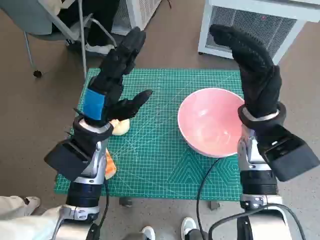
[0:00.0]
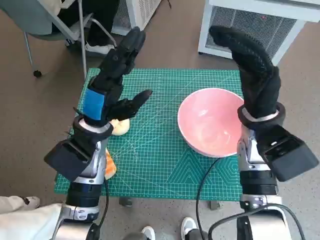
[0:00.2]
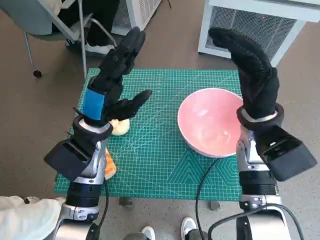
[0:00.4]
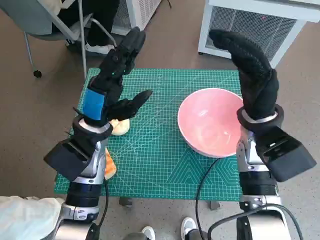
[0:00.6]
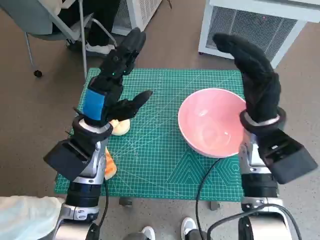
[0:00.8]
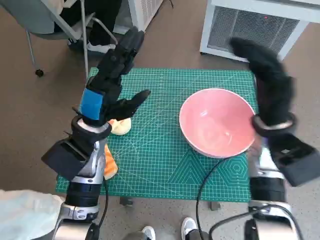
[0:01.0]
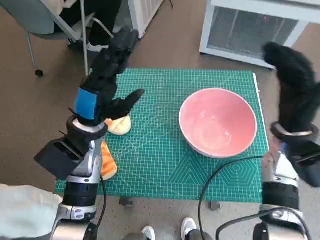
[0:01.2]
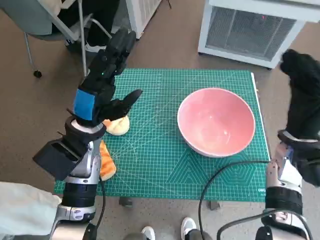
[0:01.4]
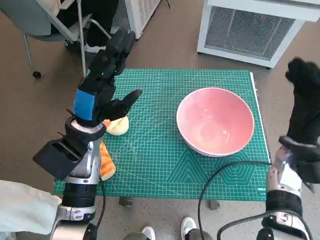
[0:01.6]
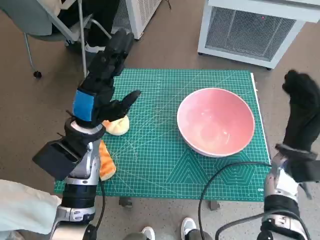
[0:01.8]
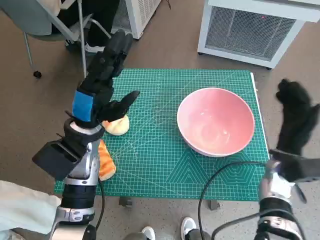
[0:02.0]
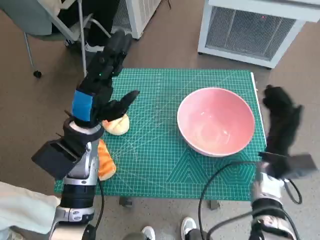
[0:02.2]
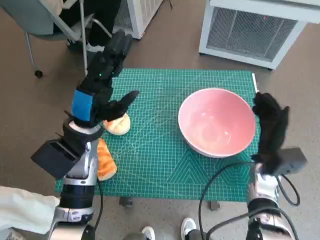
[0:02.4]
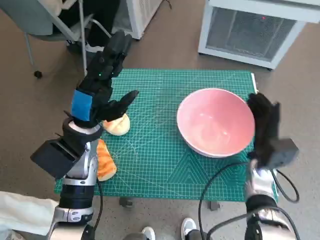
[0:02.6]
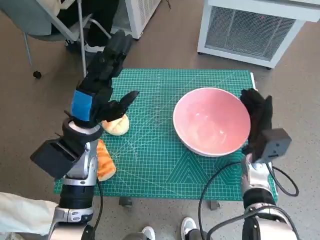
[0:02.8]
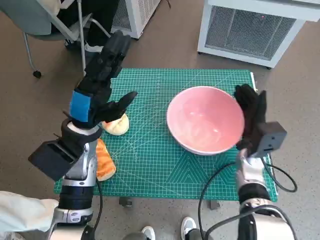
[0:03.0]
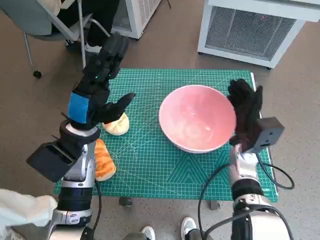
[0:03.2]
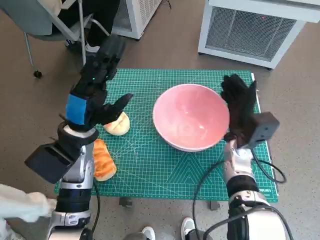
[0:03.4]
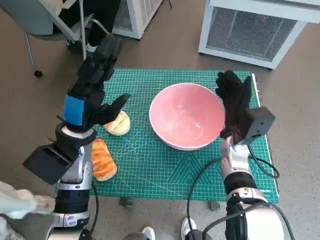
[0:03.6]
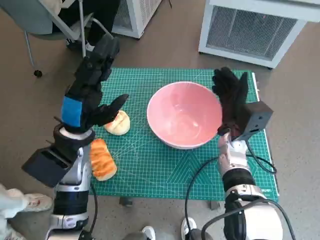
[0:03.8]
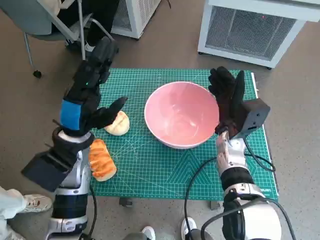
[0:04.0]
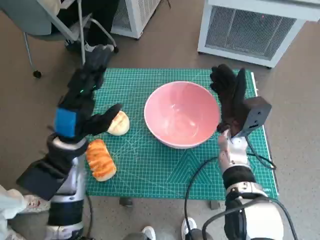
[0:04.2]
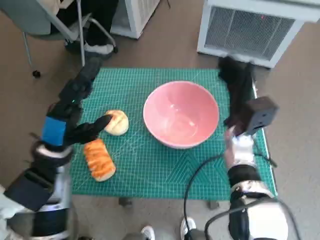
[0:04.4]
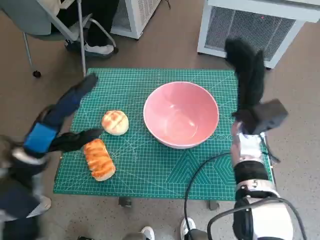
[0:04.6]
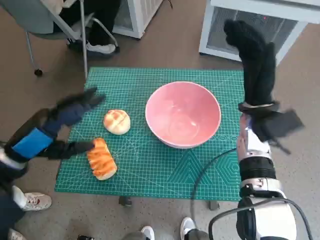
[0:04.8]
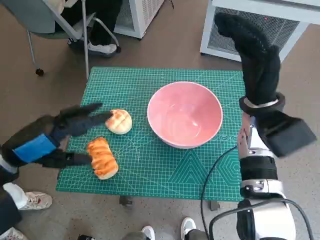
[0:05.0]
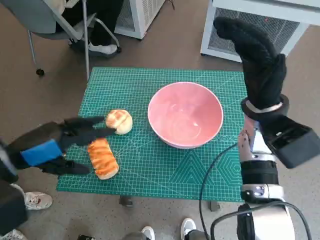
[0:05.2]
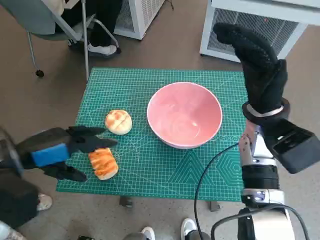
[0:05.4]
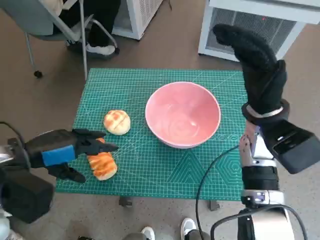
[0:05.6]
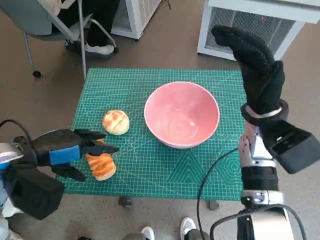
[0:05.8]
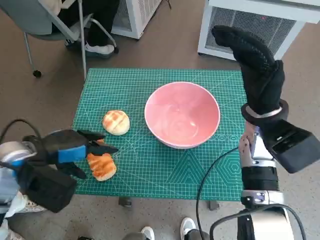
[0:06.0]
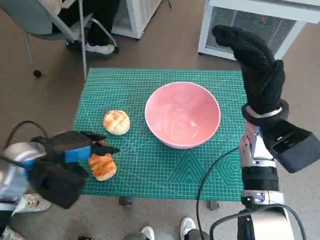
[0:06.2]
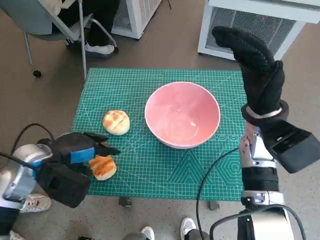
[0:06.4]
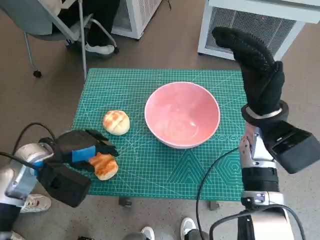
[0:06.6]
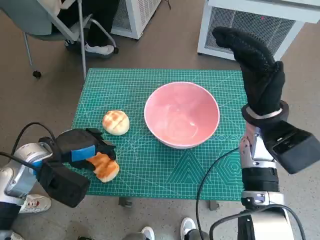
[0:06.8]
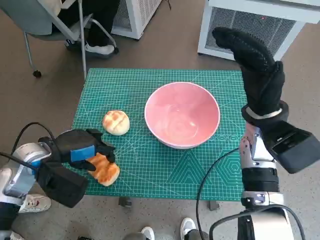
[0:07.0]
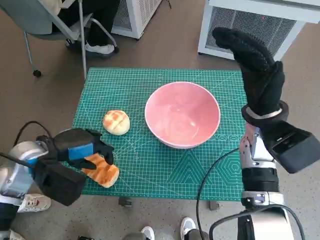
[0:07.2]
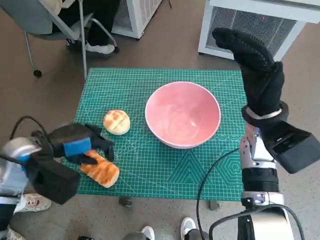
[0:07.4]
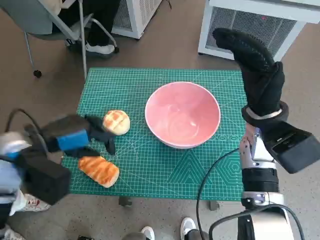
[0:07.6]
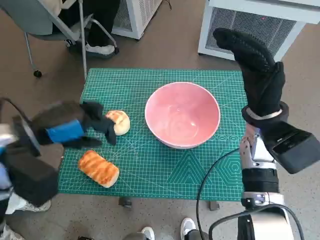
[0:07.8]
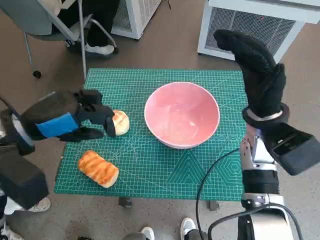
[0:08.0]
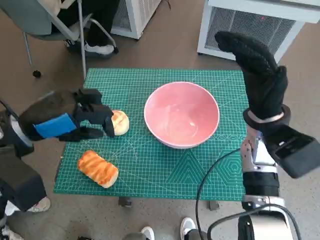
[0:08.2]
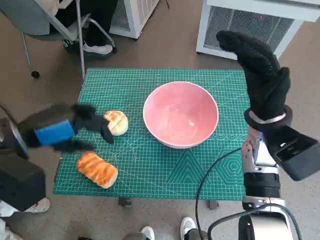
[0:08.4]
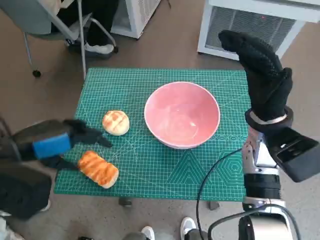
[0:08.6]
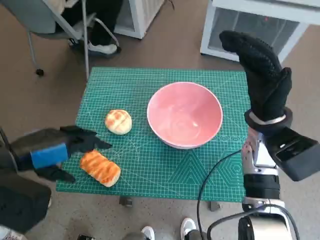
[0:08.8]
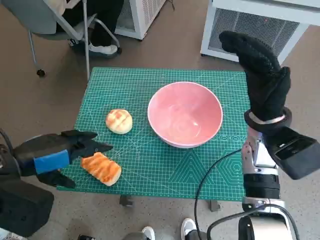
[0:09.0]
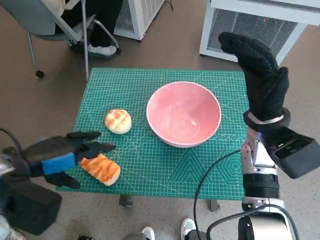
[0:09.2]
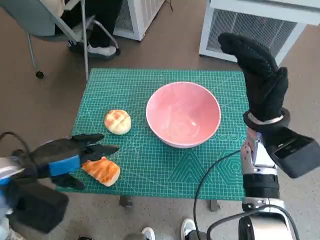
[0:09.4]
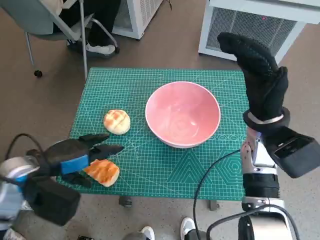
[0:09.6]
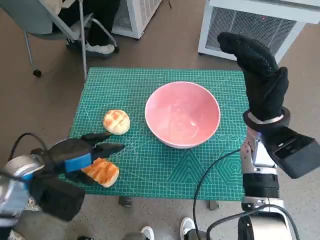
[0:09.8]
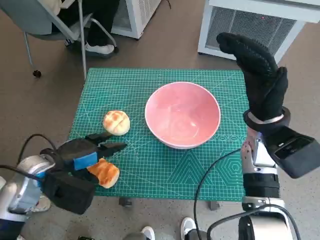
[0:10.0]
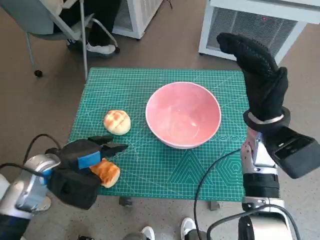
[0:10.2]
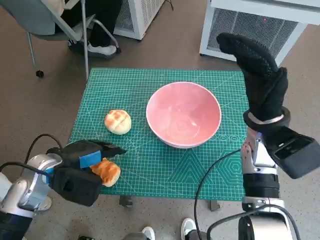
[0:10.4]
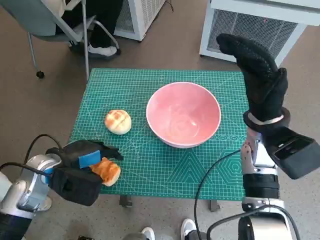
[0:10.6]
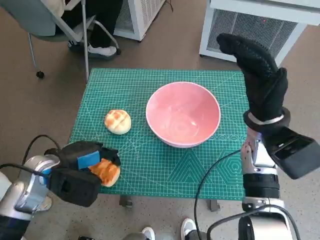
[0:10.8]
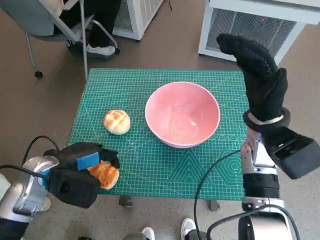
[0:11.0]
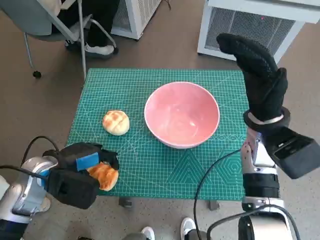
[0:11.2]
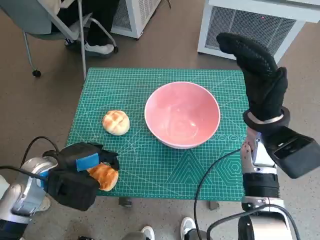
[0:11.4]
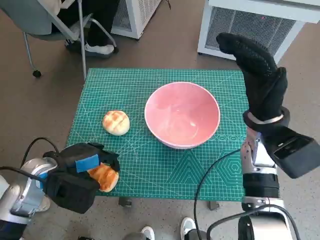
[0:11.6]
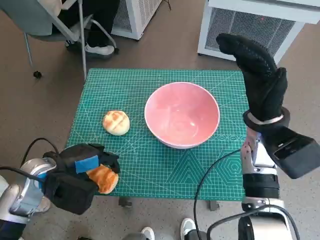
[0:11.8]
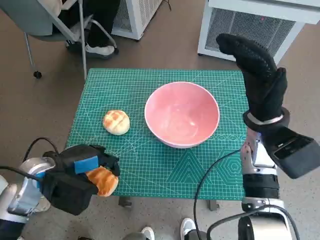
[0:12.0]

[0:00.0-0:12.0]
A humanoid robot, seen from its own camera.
Task of the whole recording: Push the bowl to the center of the table and put the bread into the bowl.
Step, 0:00.0 to 0:04.4: Move the pink bowl to the center of table with right hand.
Step, 0:04.6 to 0:11.0: Grasp the long bread with left hand.
0:01.6 to 0:03.0: The right hand heads downward and to the left, covering roughly 10 cm.
0:03.0 to 0:04.4: The left hand moves approximately 5 cm, while the right hand ends up approximately 5 cm from where it was.
0:04.4 to 0:06.0: The right hand moves upward, about 10 cm.
0:06.0 to 0:07.6: The hands move only a little.
0:07.6 to 0:09.0: The left hand shifts some 5 cm backward.
0:09.0 to 0:10.4: The left hand travels downward by some 10 cm.
0:10.4 to 0:12.0: The hands move only a little.

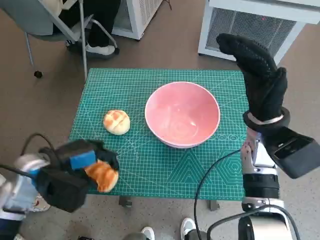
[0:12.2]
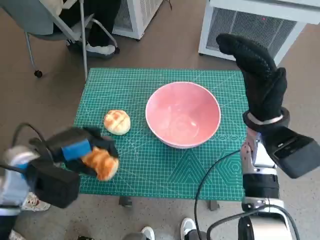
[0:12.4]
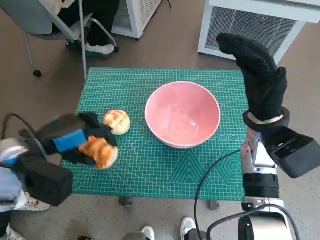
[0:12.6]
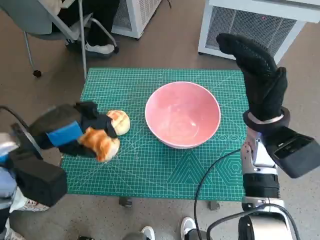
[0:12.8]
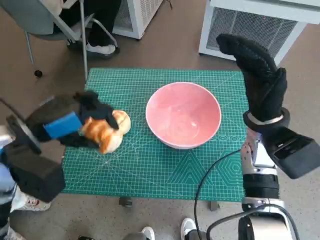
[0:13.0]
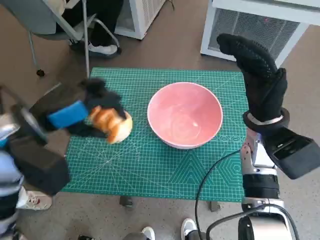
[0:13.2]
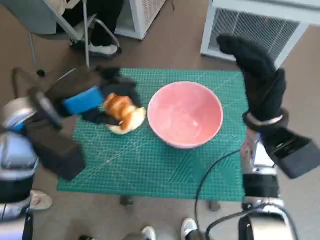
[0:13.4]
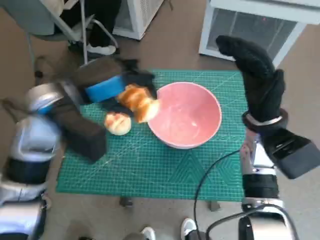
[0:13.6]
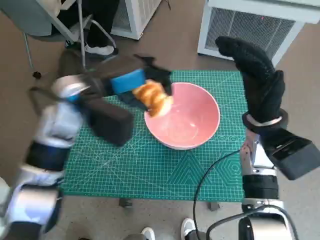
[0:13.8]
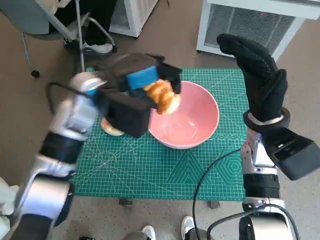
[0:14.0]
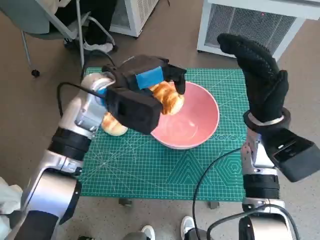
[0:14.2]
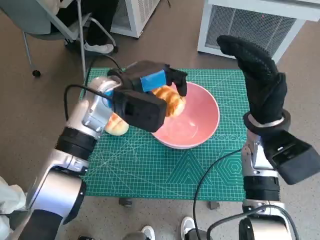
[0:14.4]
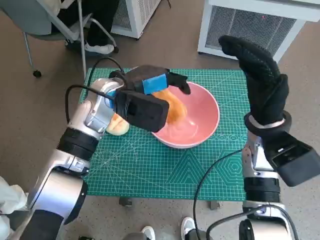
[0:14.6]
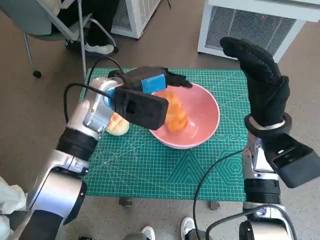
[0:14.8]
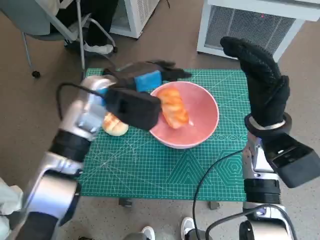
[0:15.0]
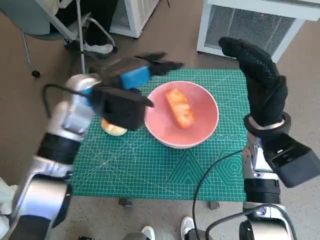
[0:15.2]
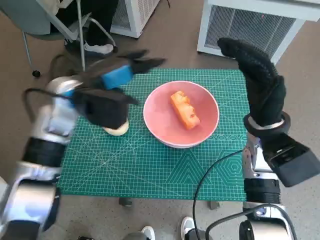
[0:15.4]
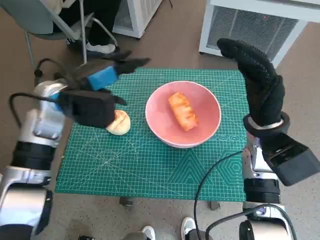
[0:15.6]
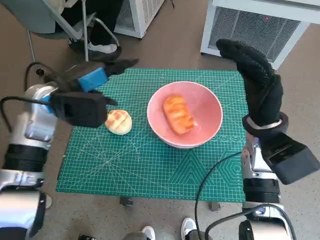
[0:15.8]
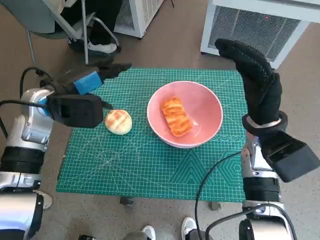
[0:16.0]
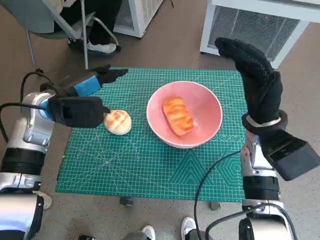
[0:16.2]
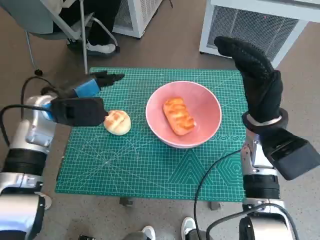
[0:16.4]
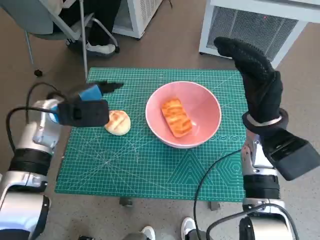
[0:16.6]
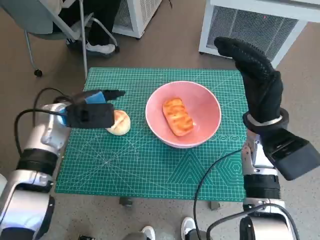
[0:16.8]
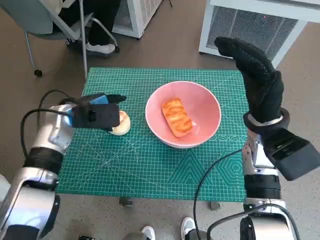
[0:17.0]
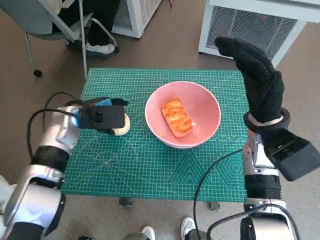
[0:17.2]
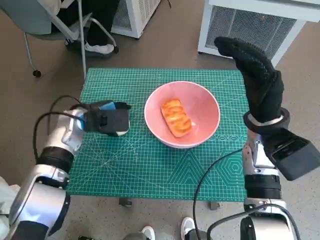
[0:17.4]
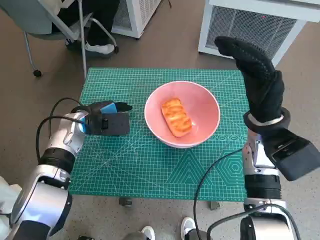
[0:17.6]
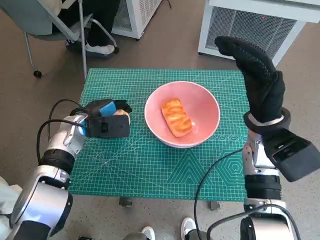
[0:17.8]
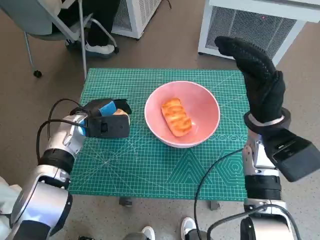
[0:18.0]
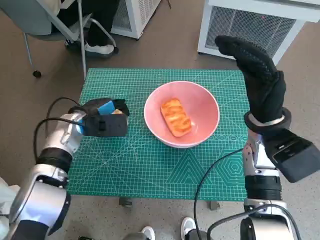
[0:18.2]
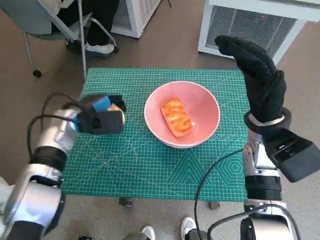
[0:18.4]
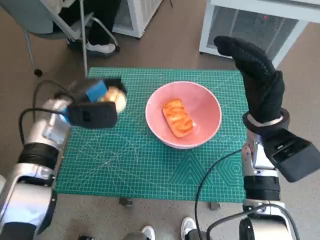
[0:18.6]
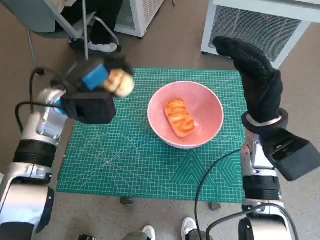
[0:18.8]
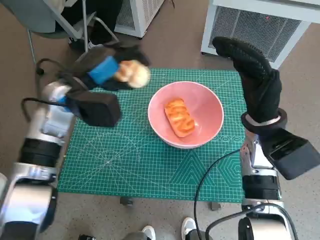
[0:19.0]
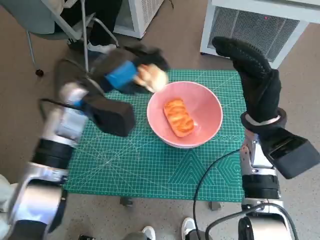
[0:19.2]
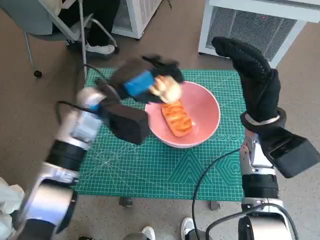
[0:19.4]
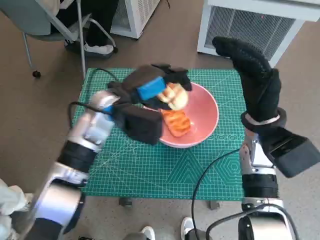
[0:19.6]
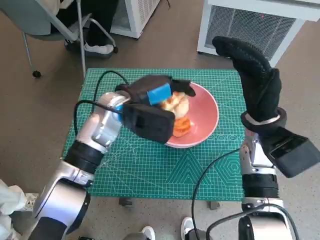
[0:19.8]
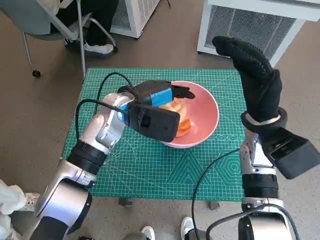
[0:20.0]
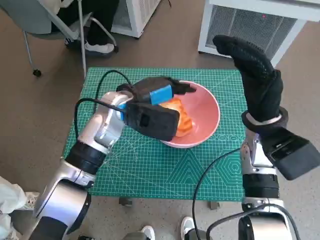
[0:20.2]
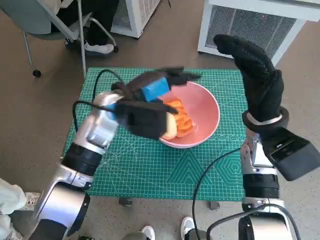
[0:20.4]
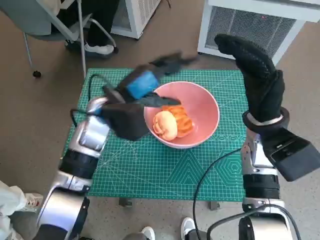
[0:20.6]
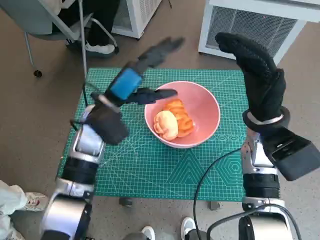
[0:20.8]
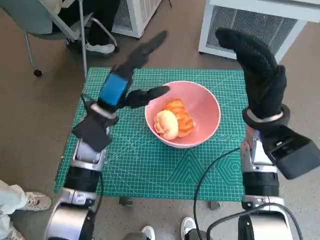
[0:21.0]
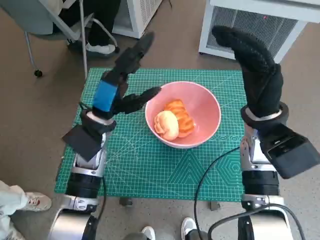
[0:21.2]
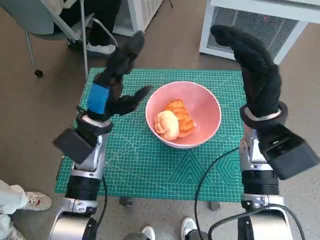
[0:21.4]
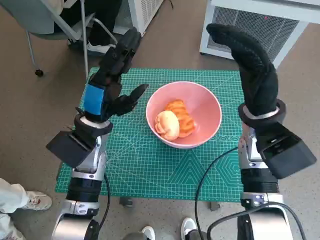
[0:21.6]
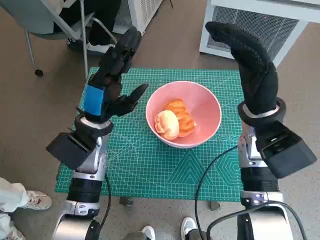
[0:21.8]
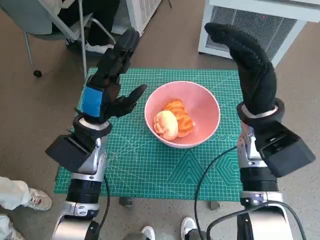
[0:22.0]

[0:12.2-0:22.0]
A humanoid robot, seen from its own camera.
Task of the whole recording: Push the bowl to the center of the table and put the bread into the bowl.
Step, 0:12.2 to 0:15.0: Place the long bread in pink bowl with left hand.
Step, 0:15.2 to 0:18.0: Grasp the round bread with left hand.
Step, 0:18.2 to 0:20.4: Place the round bread in pink bowl with left hand.
0:12.2 to 0:13.6: The left hand is displaced upward, to the right and forward by roughly 15 cm.
0:13.6 to 0:15.0: The left hand travels to the right and forward by about 10 cm.
0:15.0 to 0:16.4: The left hand shifts approximately 10 cm to the left.
0:16.4 to 0:17.8: The left hand heads downward, covering approximately 10 cm.
0:17.8 to 0:19.2: The left hand is displaced upward by approximately 10 cm.
0:20.6 to 0:22.0: The left hand ends up some 5 cm from where it was.
